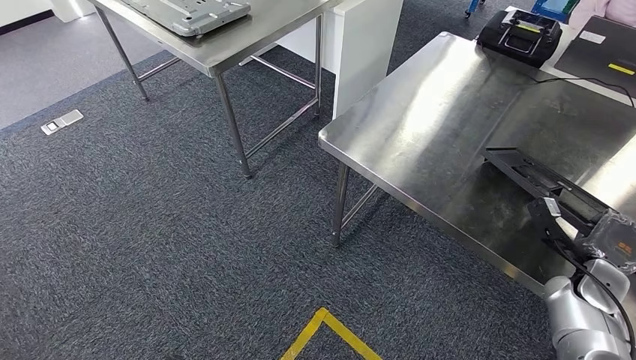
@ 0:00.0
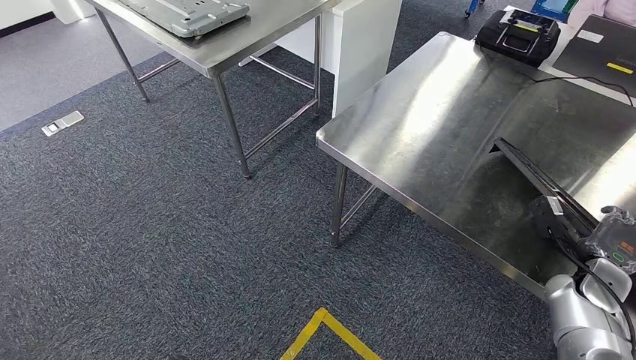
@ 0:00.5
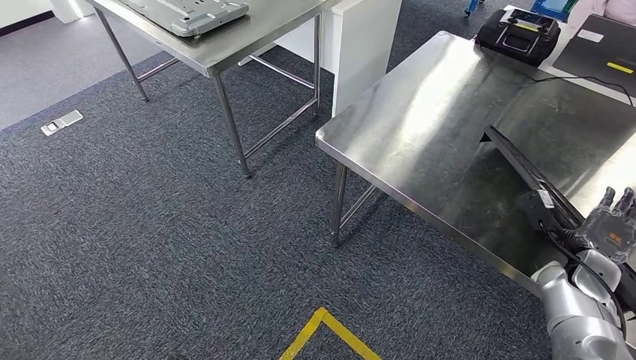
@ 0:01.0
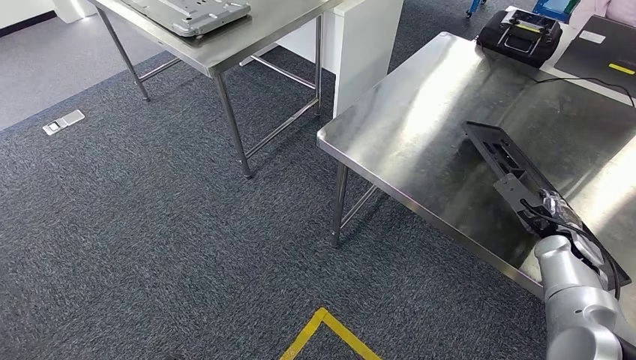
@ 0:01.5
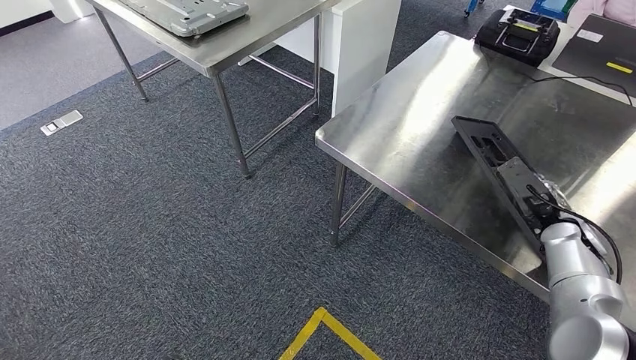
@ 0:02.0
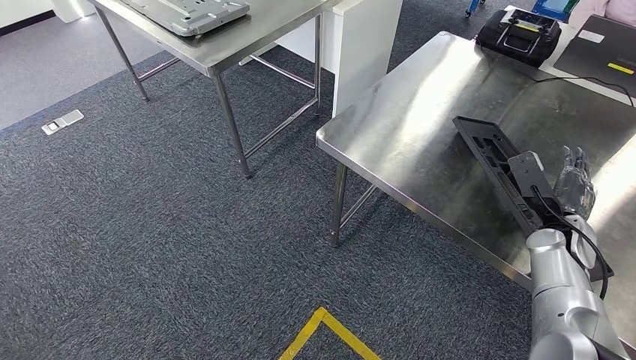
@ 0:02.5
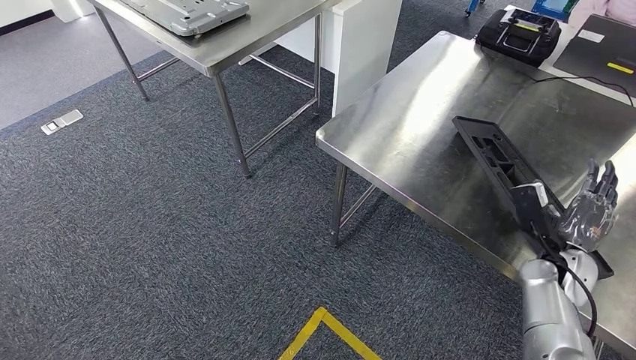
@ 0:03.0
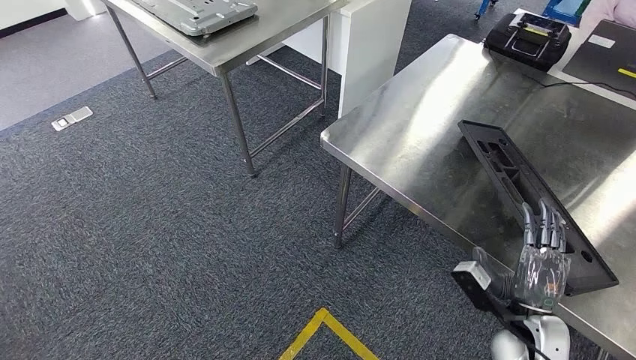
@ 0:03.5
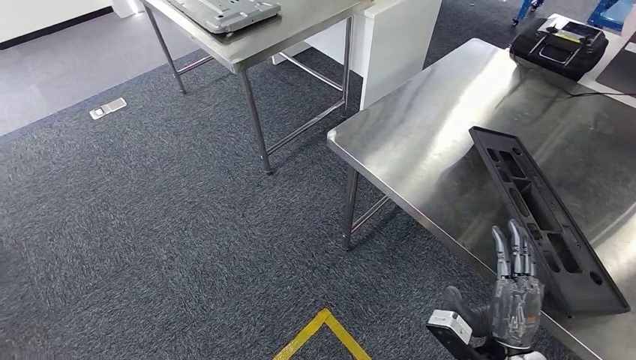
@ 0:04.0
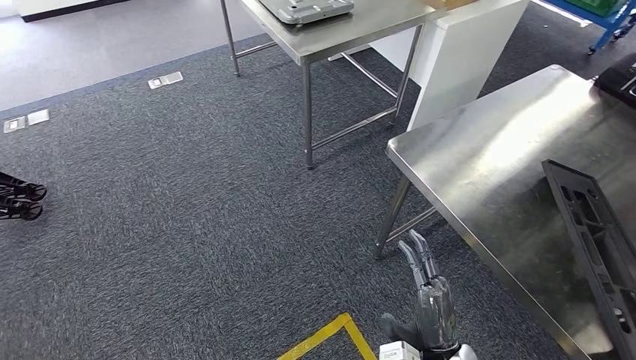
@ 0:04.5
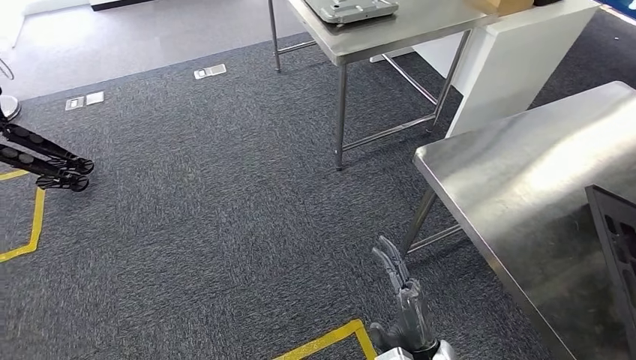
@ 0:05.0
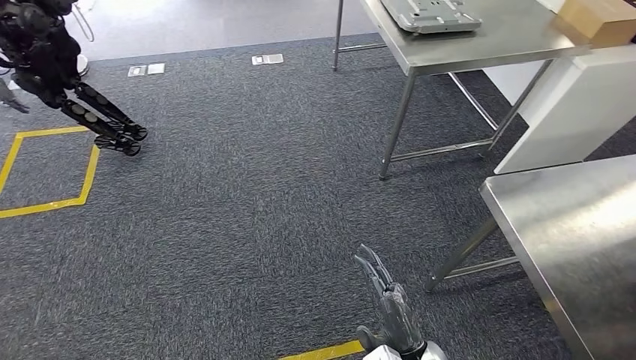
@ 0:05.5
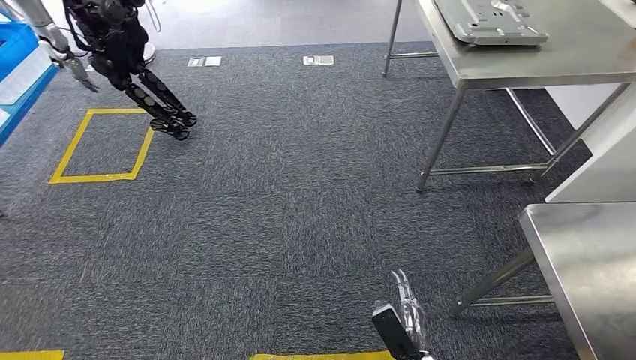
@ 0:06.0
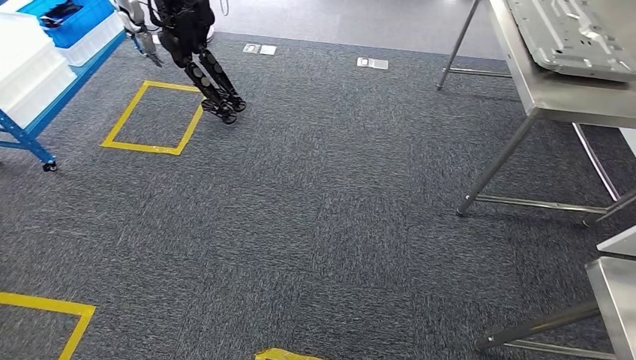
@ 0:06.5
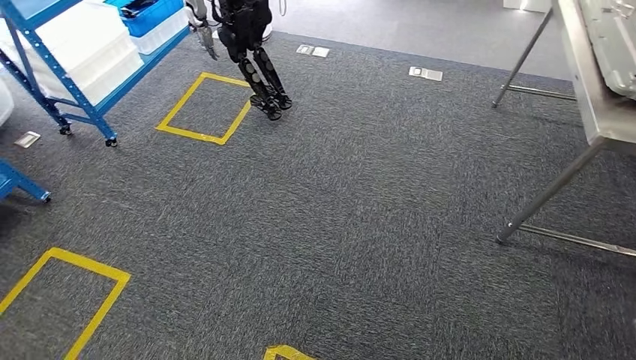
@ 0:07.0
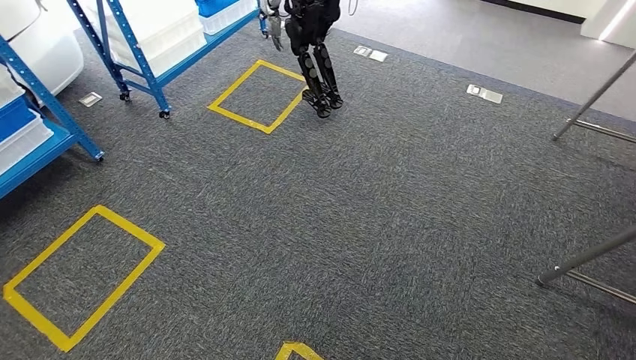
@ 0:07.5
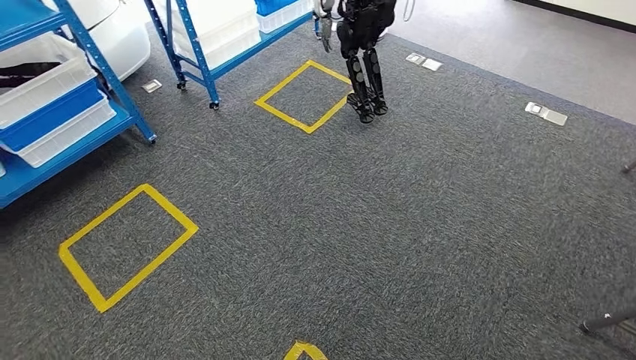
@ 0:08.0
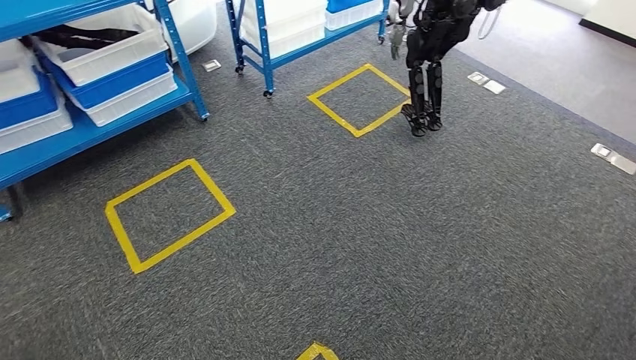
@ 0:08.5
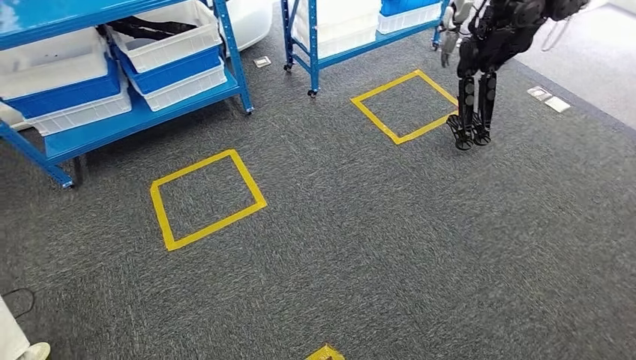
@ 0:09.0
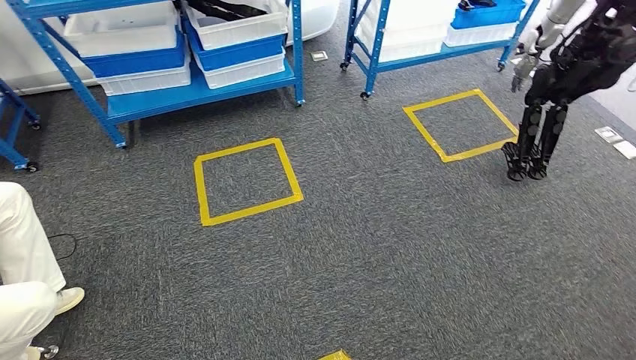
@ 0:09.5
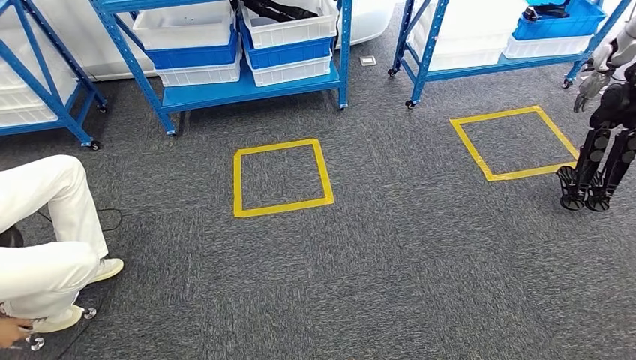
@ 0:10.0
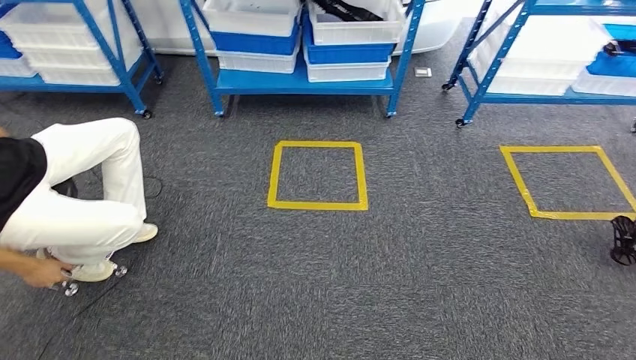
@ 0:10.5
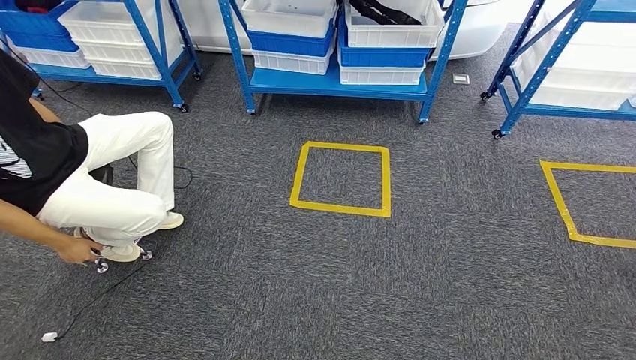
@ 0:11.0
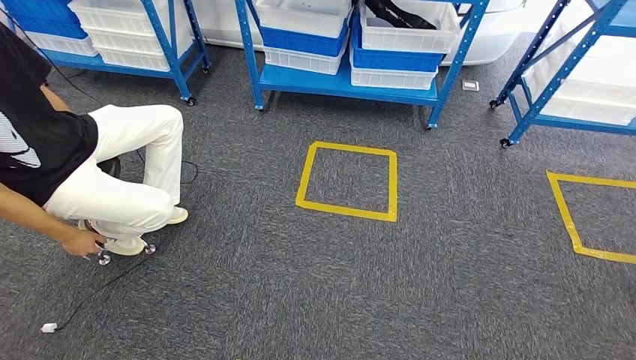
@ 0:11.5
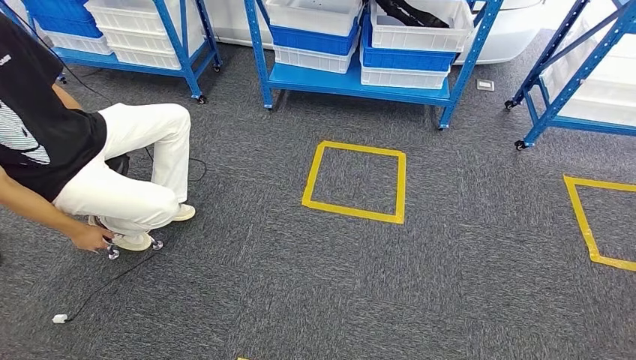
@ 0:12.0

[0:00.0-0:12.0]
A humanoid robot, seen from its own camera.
Step, 0:00.0 to 0:07.0: Insert the large material into the corresponding slot on the workbench.
0:00.0 to 0:02.0: The right hand goes about 10 cm forward and upward.

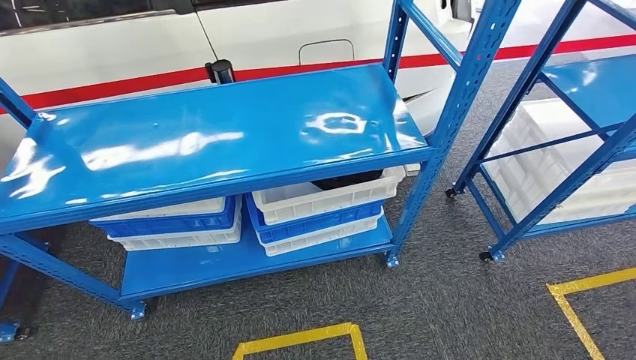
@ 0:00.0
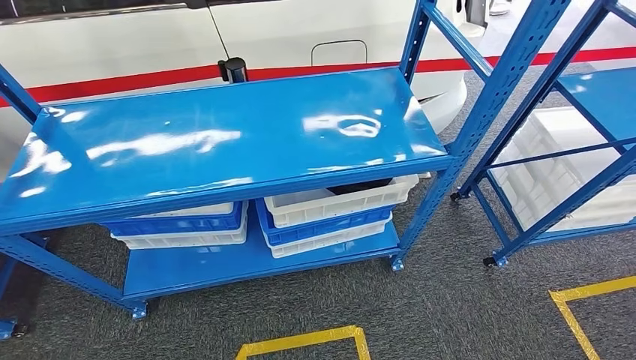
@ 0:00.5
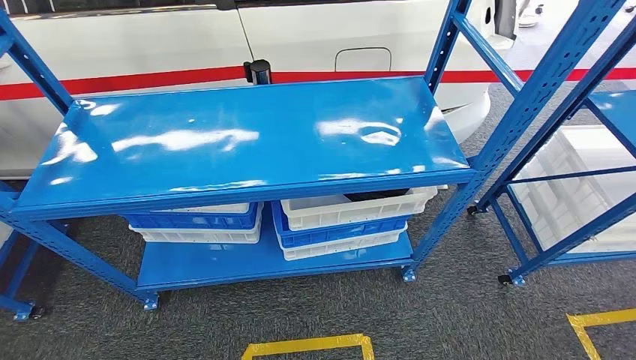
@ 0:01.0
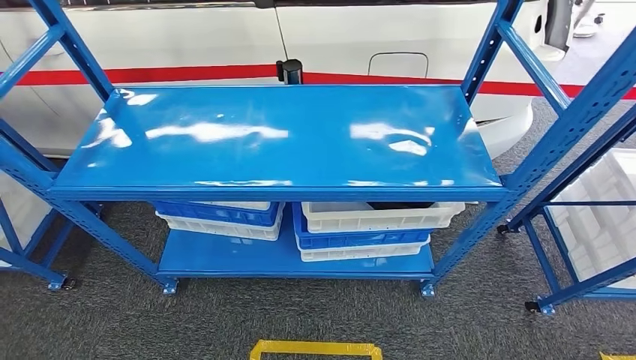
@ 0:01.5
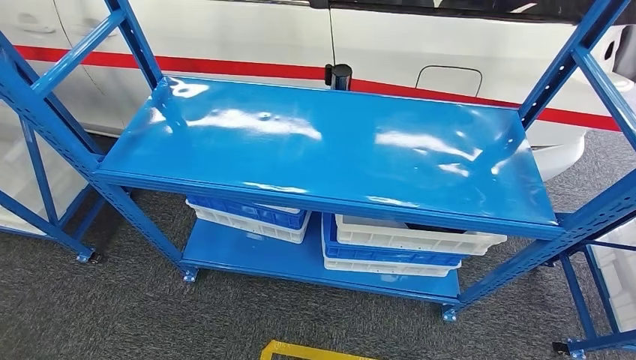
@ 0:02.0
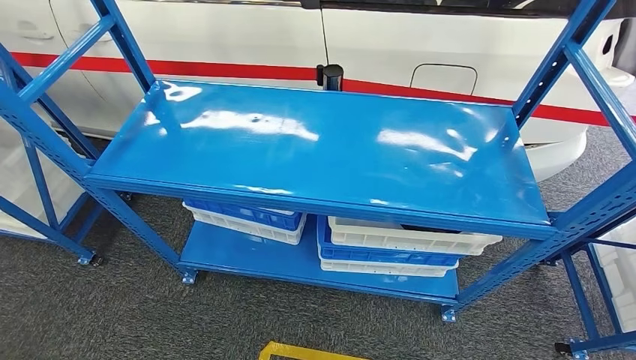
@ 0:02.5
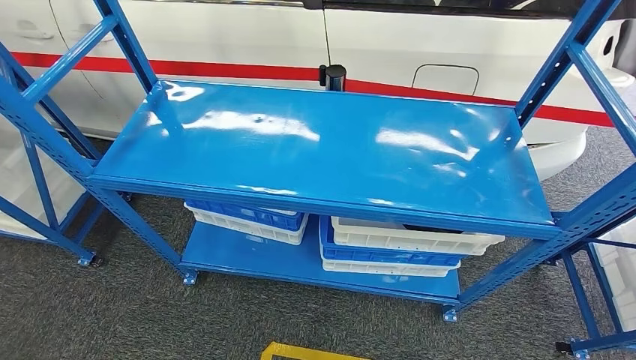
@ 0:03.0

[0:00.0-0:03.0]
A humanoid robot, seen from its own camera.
Step, 0:00.0 to 0:03.0: Move to the initial position of the shelf.
